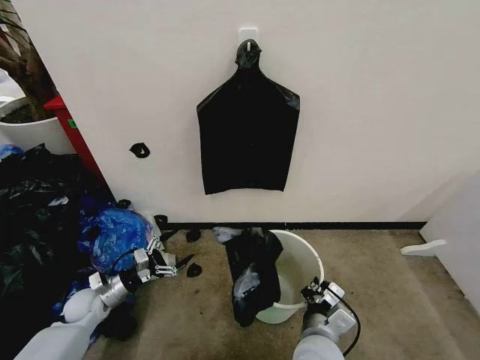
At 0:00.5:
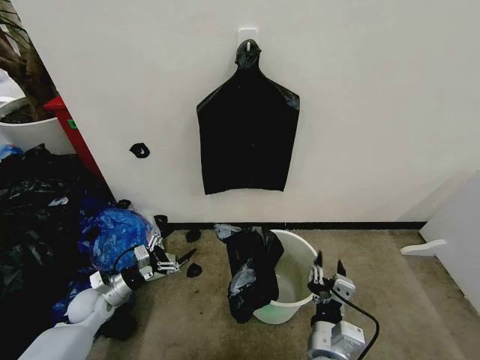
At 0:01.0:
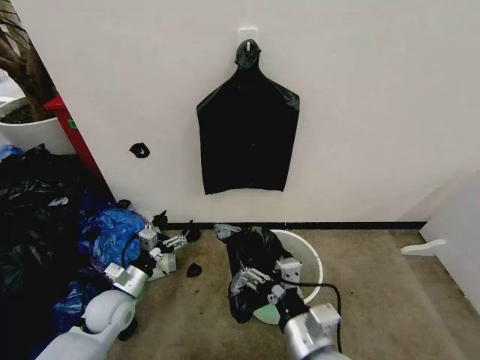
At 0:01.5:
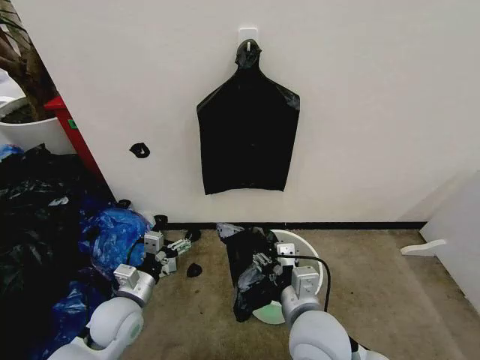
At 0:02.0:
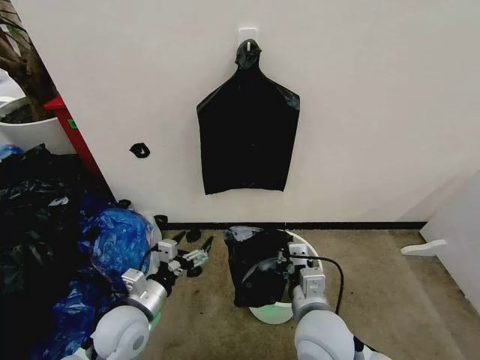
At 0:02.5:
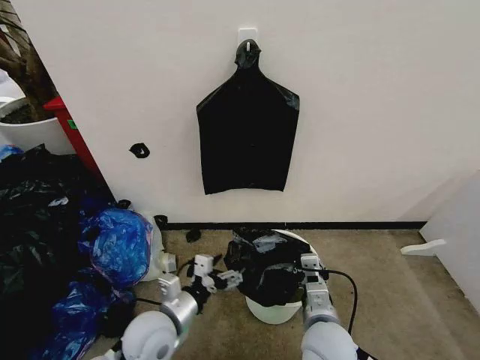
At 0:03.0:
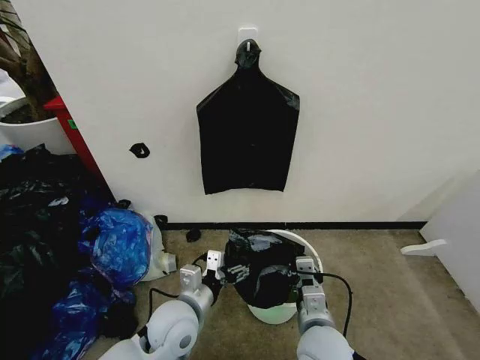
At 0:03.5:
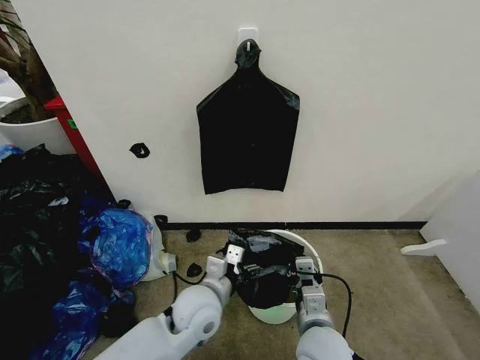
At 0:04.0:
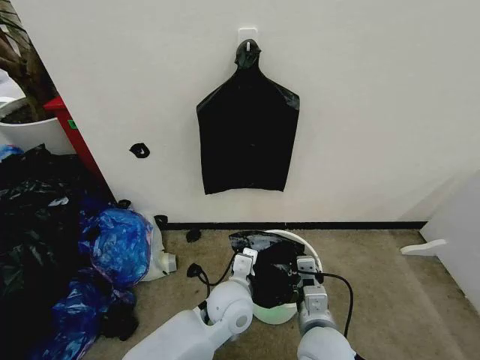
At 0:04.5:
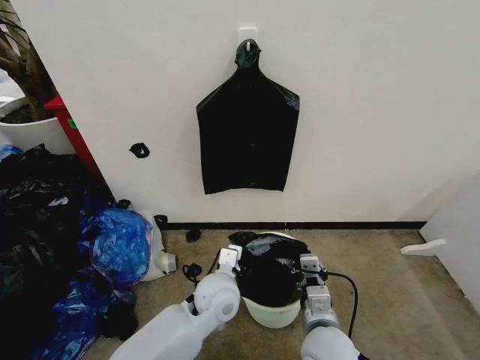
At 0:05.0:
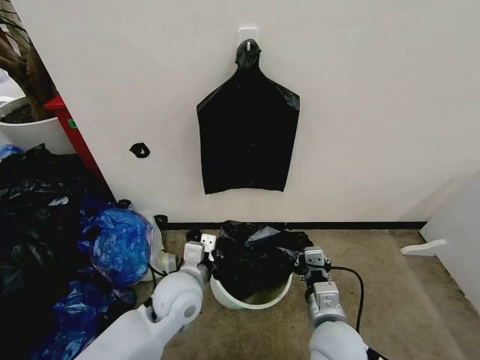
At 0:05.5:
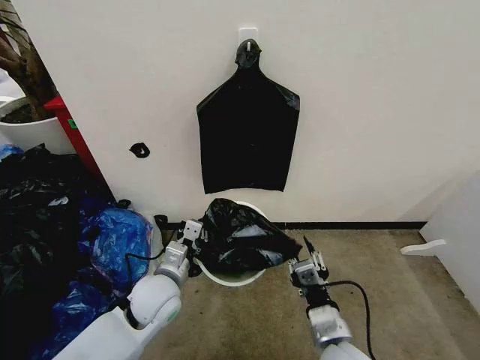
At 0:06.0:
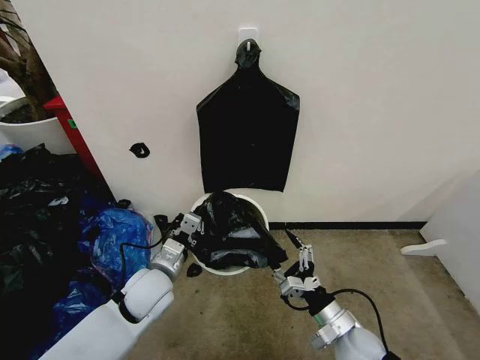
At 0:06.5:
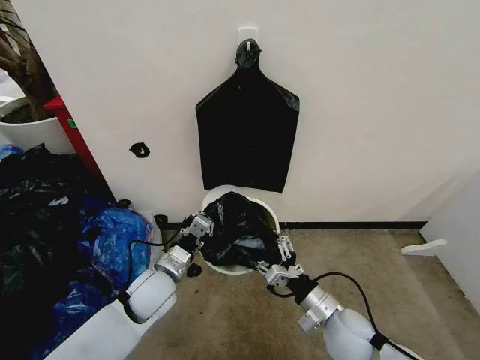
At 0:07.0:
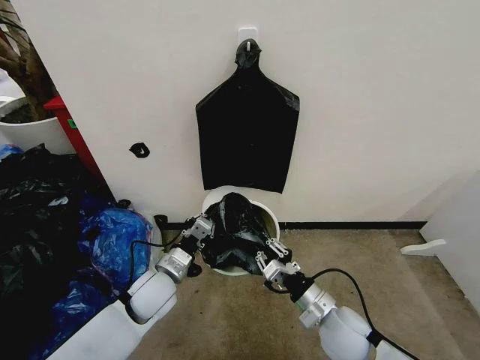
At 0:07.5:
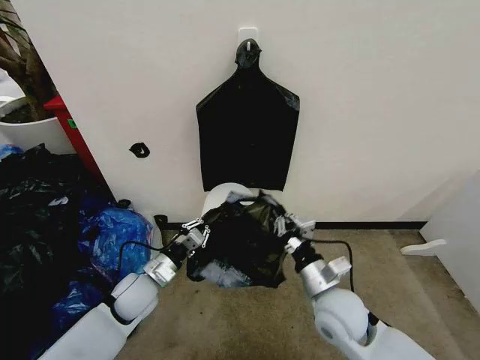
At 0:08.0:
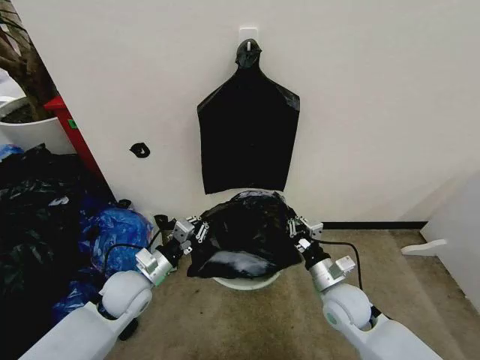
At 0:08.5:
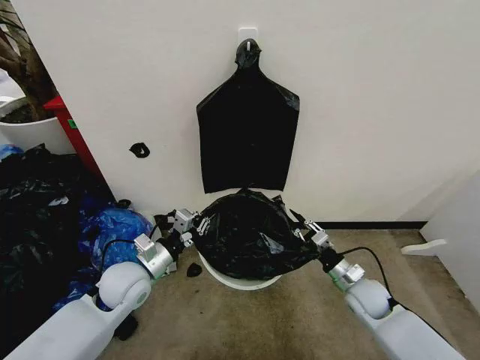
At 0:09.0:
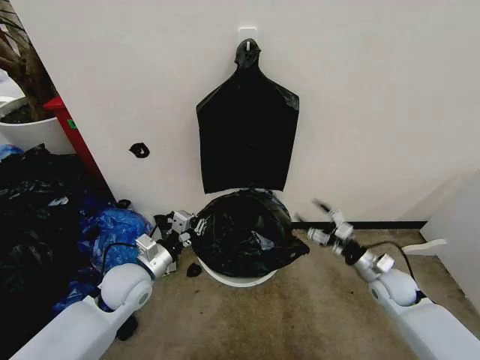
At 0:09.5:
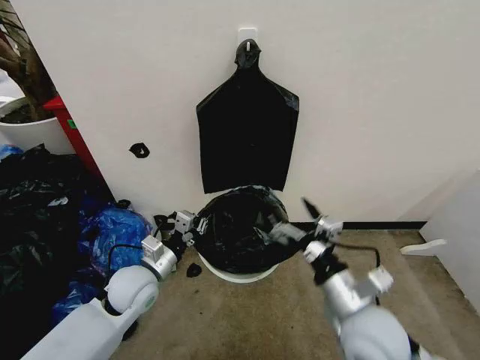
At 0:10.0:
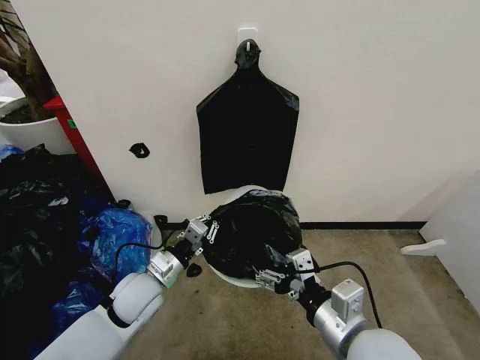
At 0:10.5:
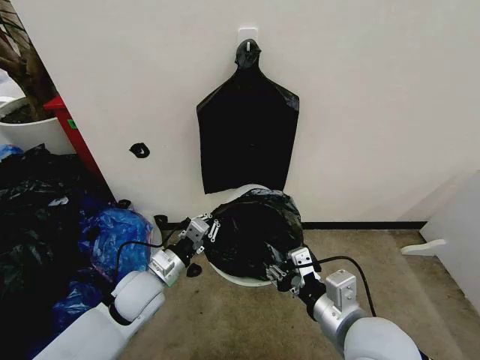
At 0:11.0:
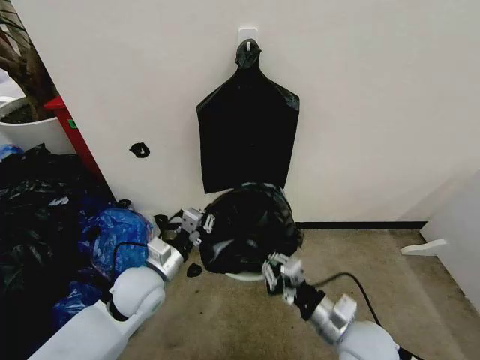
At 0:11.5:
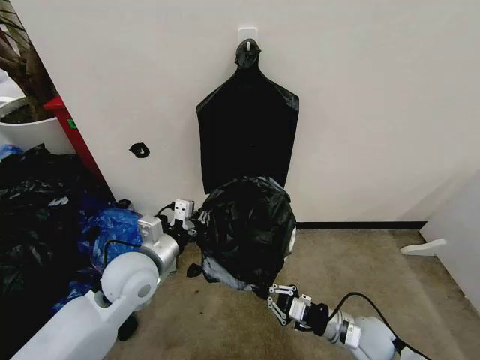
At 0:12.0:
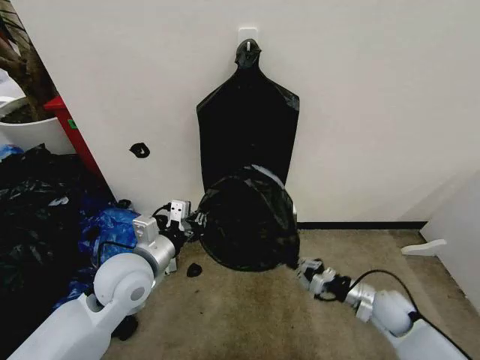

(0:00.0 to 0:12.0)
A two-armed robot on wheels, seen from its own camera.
Task of the whole recording: Place the garbage bag over the trash bin.
0:00.0 - 0:02.0: The left gripper goes about 20 cm to the right, upward and backward. The right gripper is displaced upward by some 5 cm, and opens and closes again.
0:02.0 - 0:04.0: The left gripper shifts some 20 cm to the right.
0:04.0 - 0:06.0: The right gripper is displaced to the right and downward by roughly 10 cm, and opens. The left gripper travels to the left by some 15 cm, and closes.
0:06.0 - 0:08.0: The right gripper travels forward by some 10 cm, and closes its fingers. The left gripper heads to the left, covering about 5 cm.
0:08.0 - 0:10.0: The right gripper shifts roughly 20 cm upward and backward, and opens up.
0:10.0 - 0:12.0: The right gripper goes roughly 30 cm downward, to the right and forward, and closes its fingers; the left gripper travels upward by some 10 cm.

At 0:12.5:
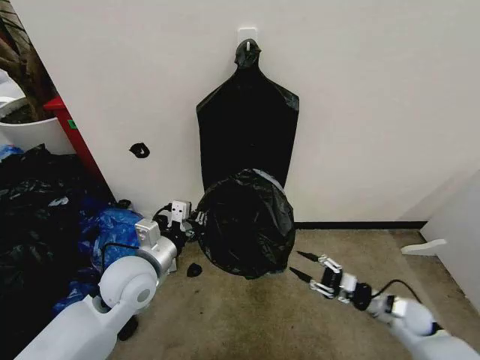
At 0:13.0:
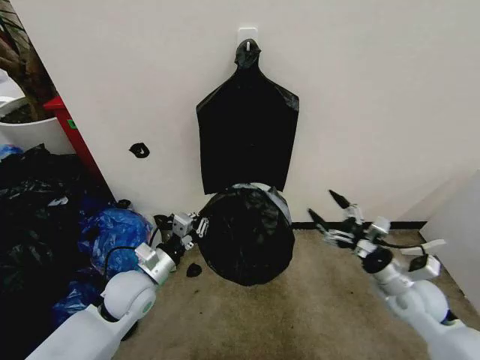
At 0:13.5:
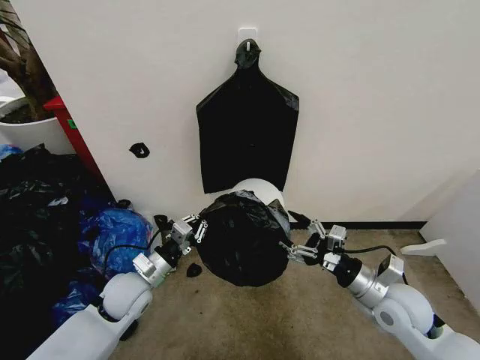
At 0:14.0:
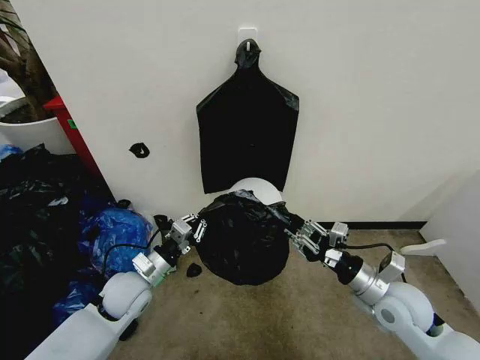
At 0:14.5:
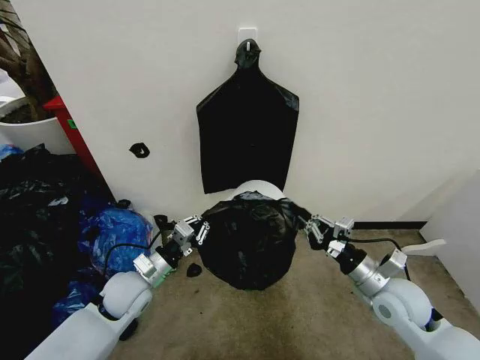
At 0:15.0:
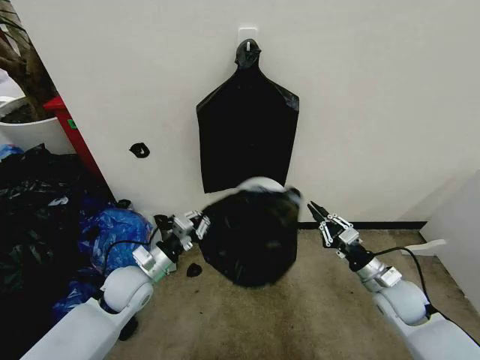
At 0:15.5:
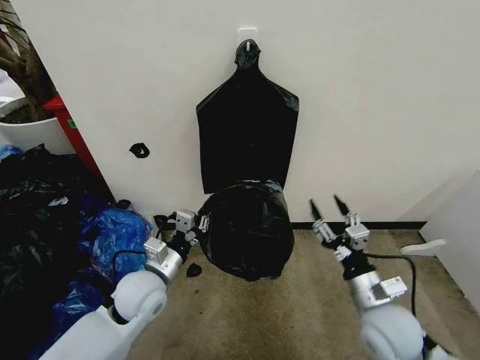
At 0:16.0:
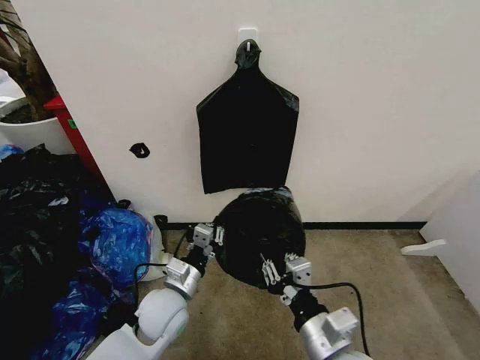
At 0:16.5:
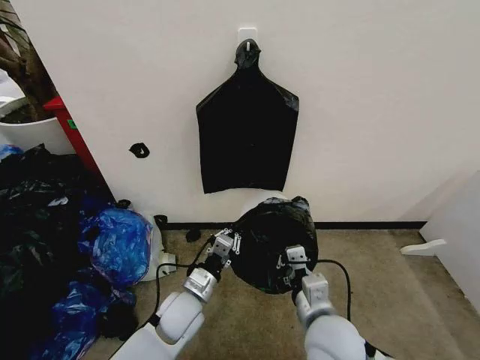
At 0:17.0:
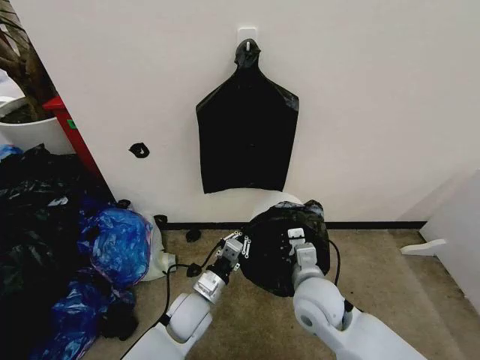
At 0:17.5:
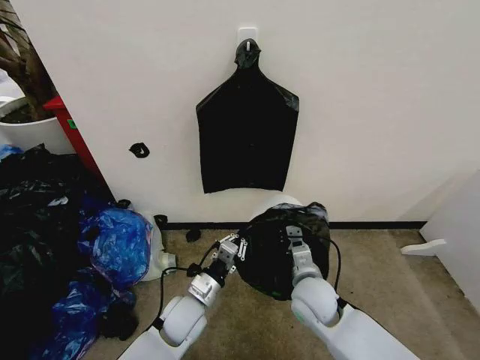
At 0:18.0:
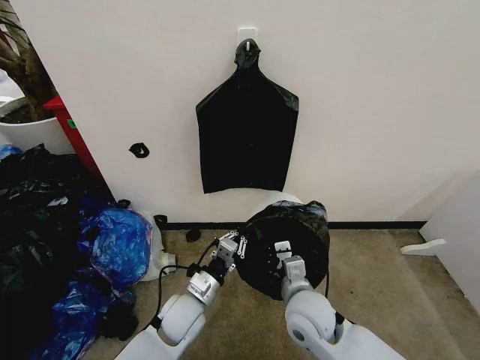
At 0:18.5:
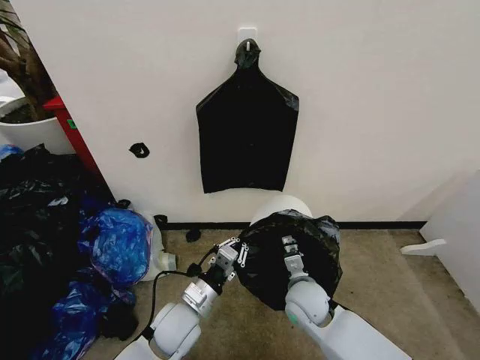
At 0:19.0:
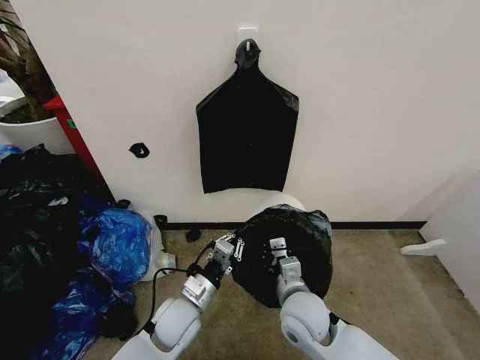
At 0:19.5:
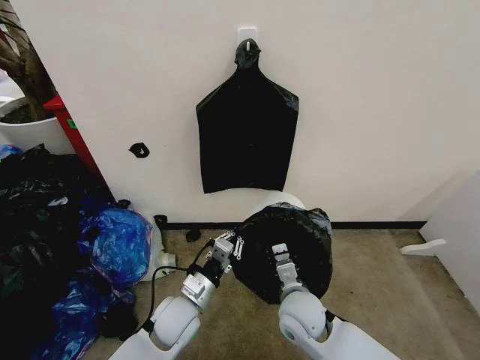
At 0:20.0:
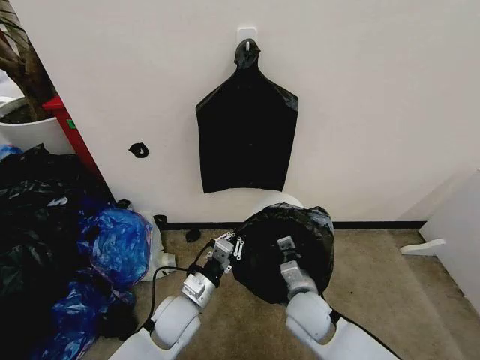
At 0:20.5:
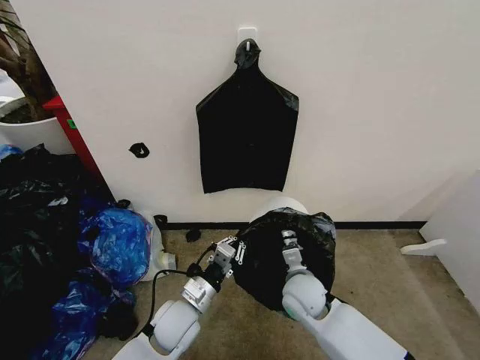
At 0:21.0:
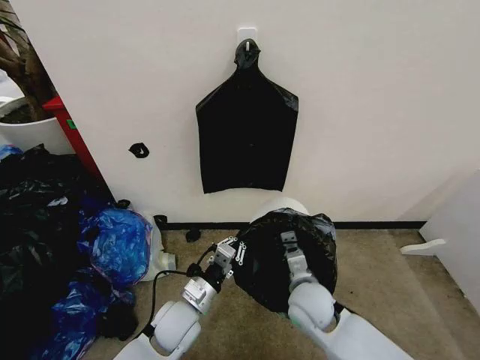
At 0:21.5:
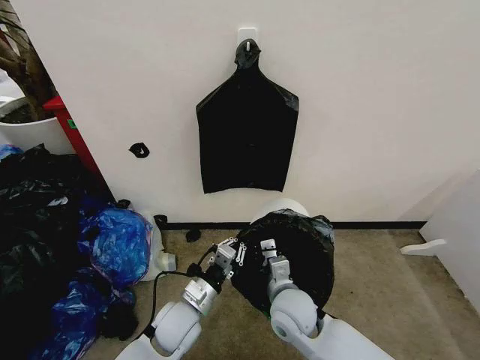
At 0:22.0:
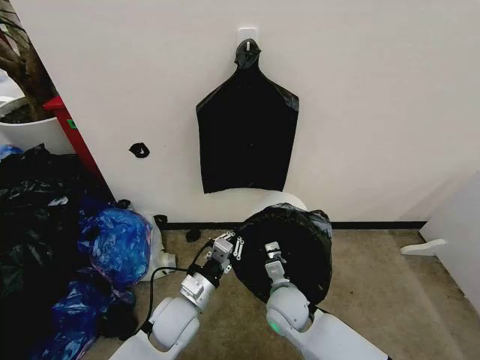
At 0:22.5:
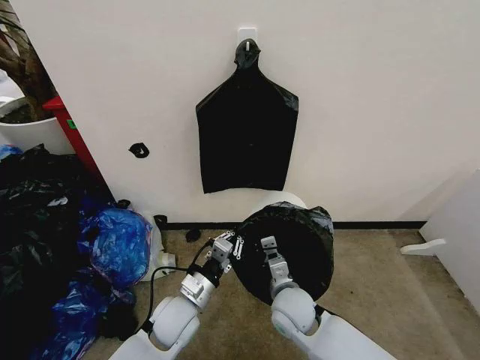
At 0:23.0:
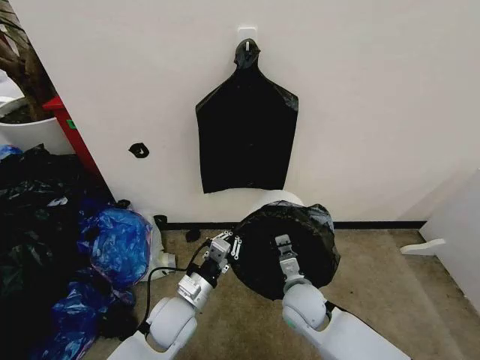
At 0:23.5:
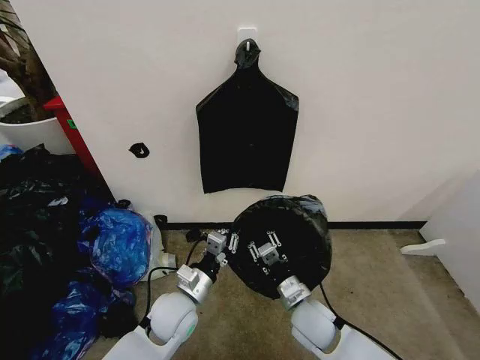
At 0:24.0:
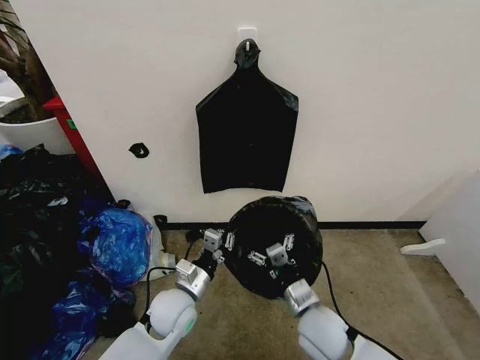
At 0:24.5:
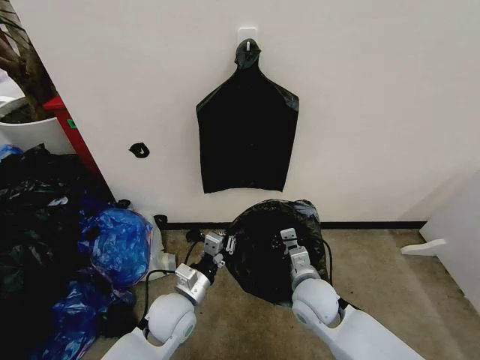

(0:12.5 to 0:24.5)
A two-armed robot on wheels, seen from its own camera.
Task of the whole recording: Place the garbage bag over the trash bin.
0:12.5 - 0:14.5: The right gripper moves upward and to the left, about 15 cm, and closes its fingers; the left gripper goes approximately 10 cm downward.
0:14.5 - 0:16.5: The left gripper moves to the right, roughly 10 cm. Meanwhile the right gripper heads to the left and backward, covering some 20 cm, and opens and closes again.
0:16.5 - 0:18.5: The right gripper swings forward and backward, roughly 10 cm each way, with 2 reversals.
0:22.5 - 0:24.5: The right gripper ends up some 5 cm from where it was, and opens its fingers.

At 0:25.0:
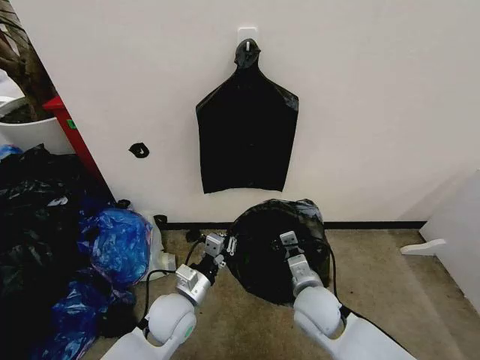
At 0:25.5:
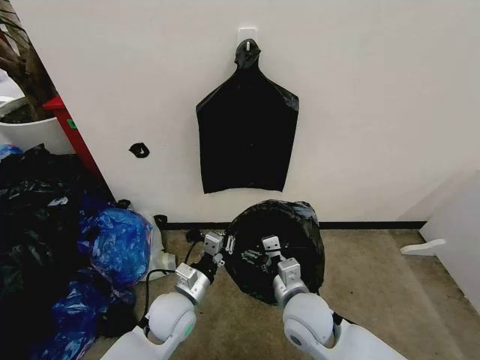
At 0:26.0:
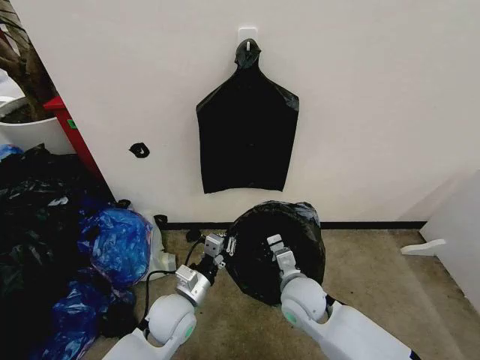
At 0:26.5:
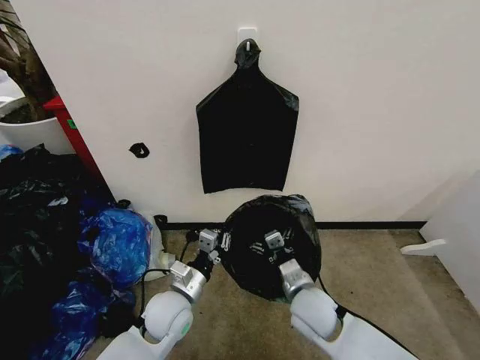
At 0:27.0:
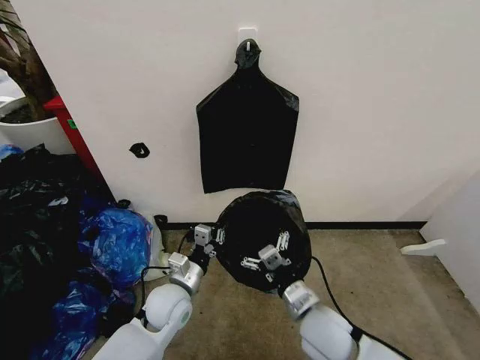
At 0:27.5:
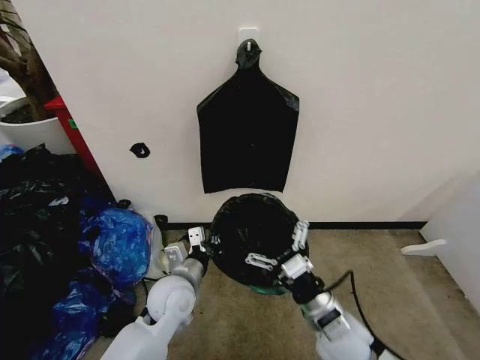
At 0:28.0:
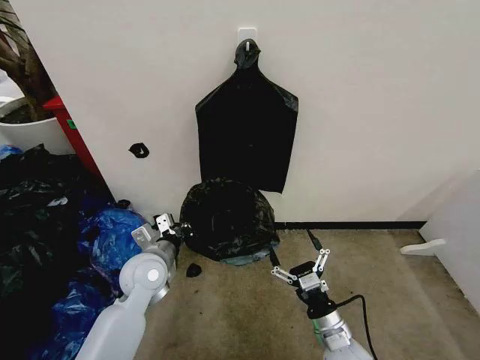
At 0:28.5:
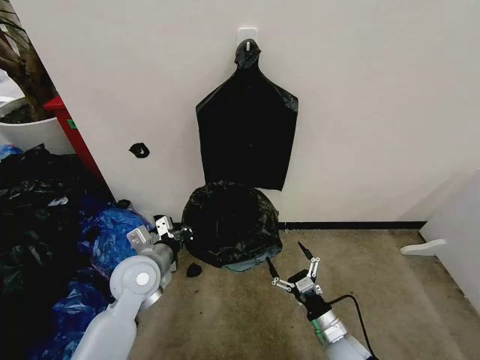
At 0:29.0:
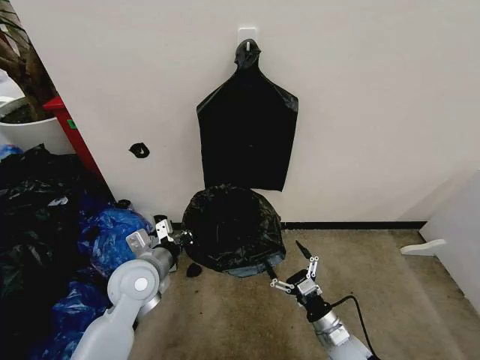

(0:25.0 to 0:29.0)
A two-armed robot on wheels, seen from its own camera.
Task of the whole recording: Place the garbage bag over the trash bin.
0:25.0 - 0:27.0: The right gripper moves about 5 cm.
0:27.0 - 0:29.0: The right gripper travels downward and to the right by some 15 cm. Meanwhile the left gripper heads upward and to the left, covering roughly 10 cm.
